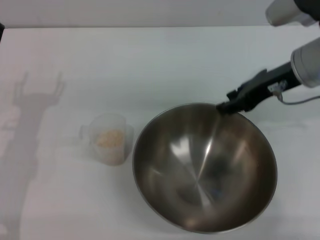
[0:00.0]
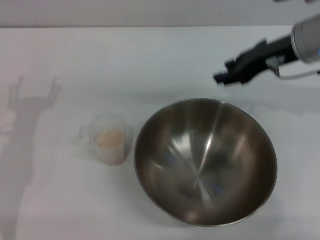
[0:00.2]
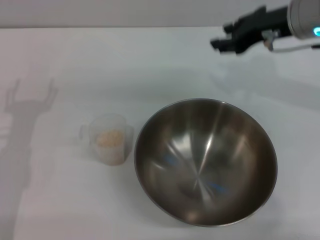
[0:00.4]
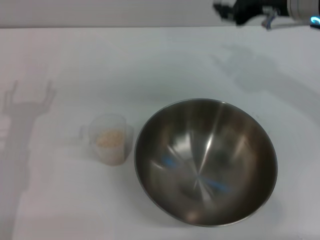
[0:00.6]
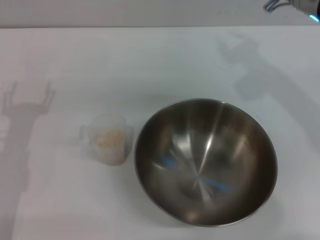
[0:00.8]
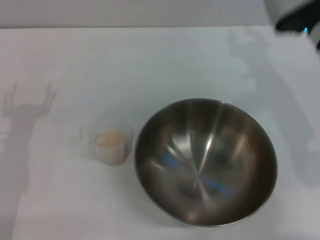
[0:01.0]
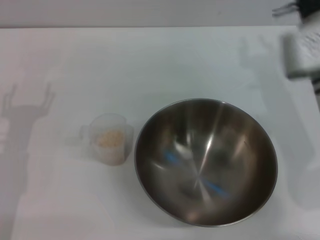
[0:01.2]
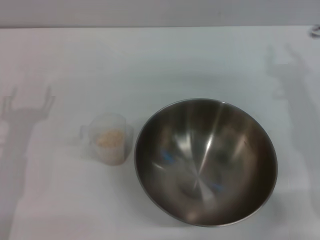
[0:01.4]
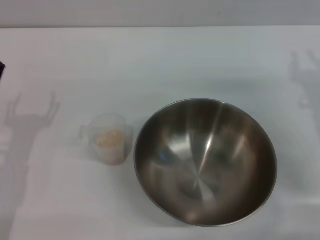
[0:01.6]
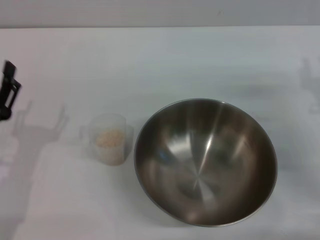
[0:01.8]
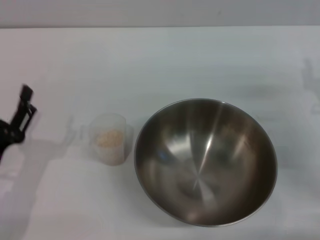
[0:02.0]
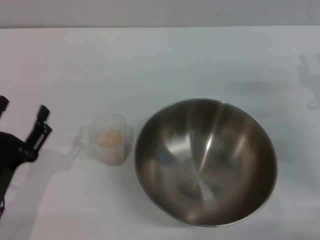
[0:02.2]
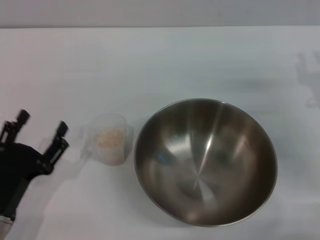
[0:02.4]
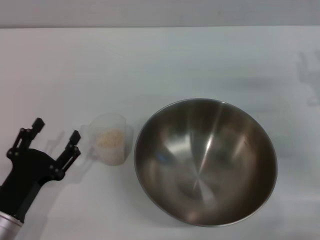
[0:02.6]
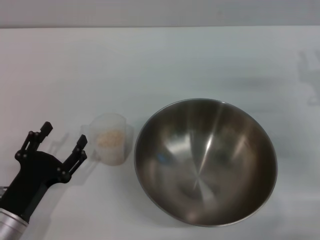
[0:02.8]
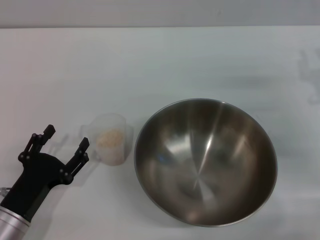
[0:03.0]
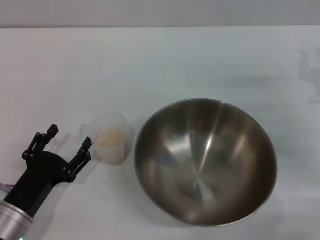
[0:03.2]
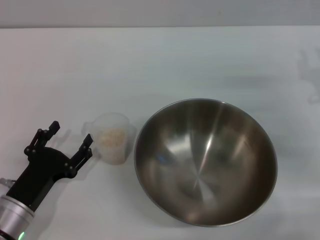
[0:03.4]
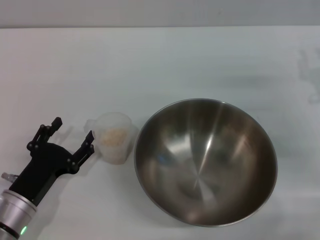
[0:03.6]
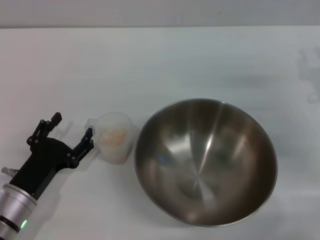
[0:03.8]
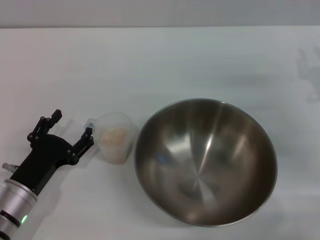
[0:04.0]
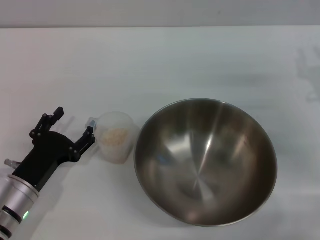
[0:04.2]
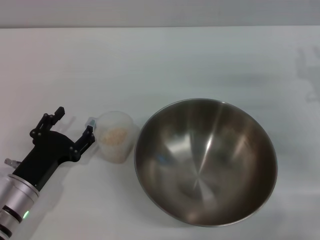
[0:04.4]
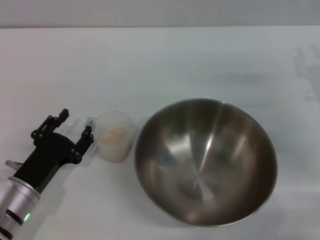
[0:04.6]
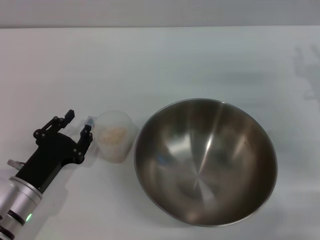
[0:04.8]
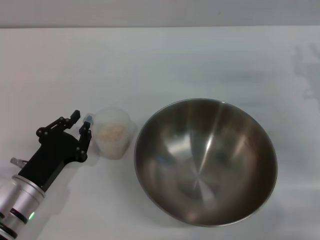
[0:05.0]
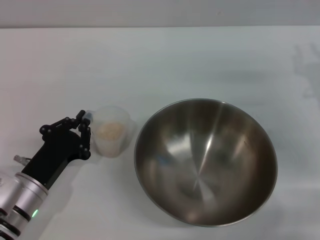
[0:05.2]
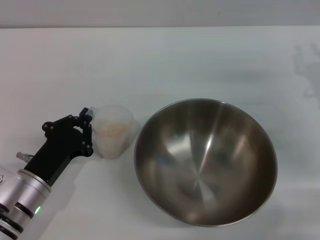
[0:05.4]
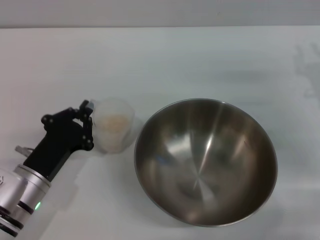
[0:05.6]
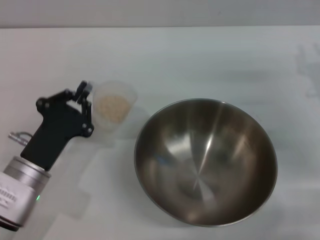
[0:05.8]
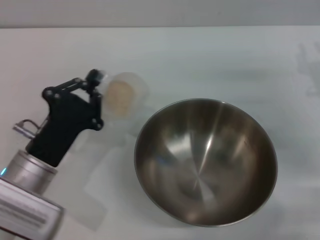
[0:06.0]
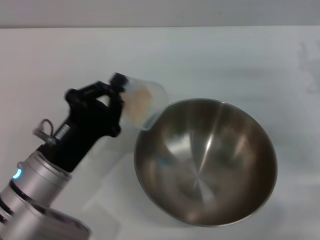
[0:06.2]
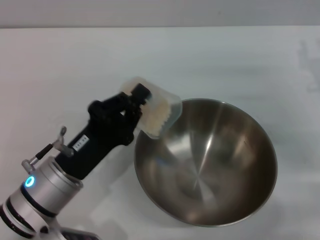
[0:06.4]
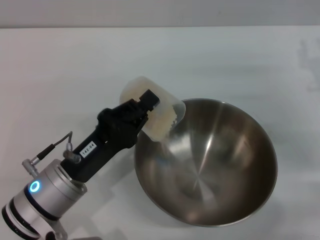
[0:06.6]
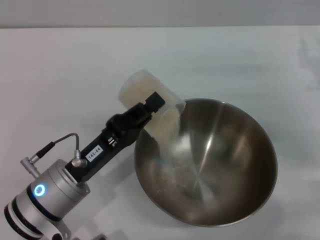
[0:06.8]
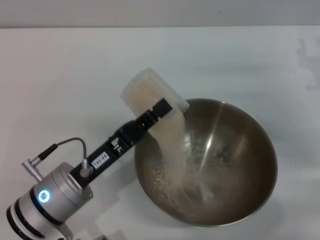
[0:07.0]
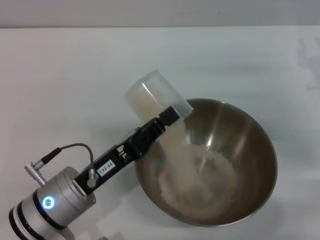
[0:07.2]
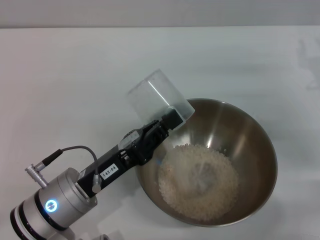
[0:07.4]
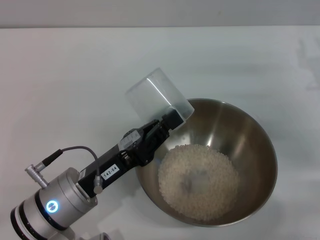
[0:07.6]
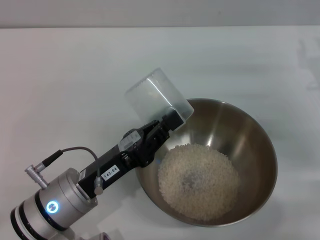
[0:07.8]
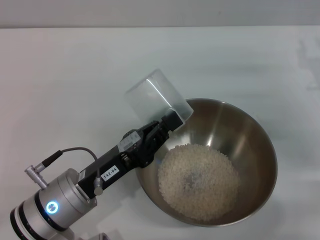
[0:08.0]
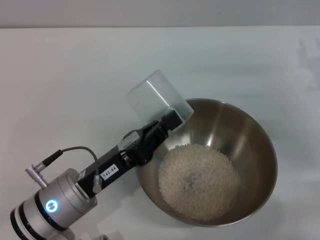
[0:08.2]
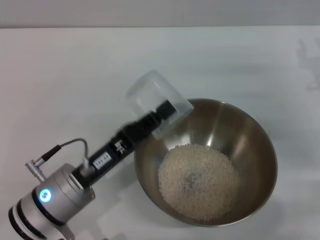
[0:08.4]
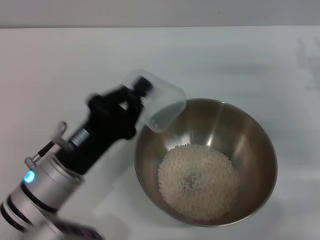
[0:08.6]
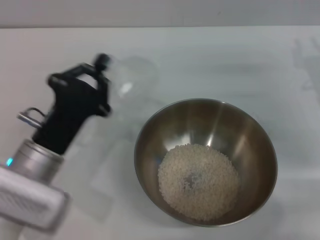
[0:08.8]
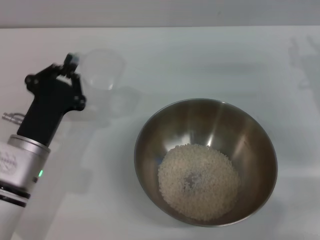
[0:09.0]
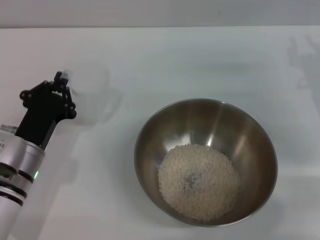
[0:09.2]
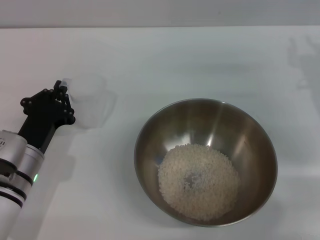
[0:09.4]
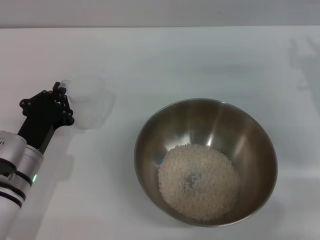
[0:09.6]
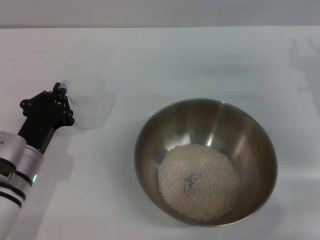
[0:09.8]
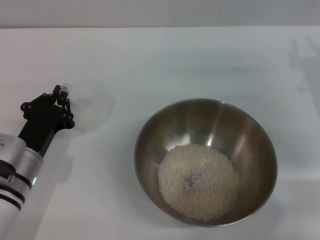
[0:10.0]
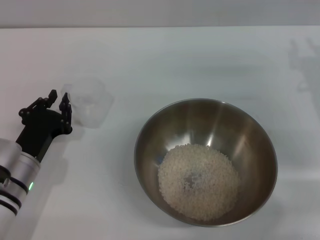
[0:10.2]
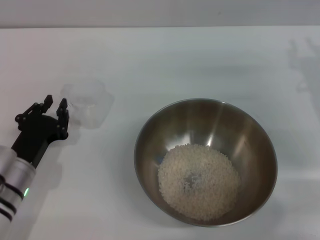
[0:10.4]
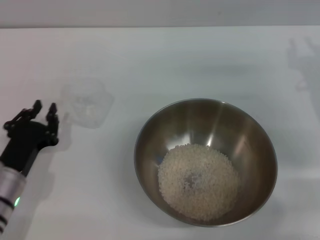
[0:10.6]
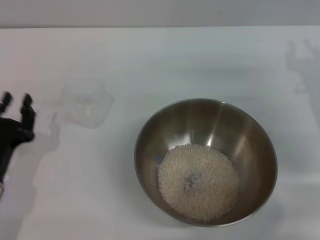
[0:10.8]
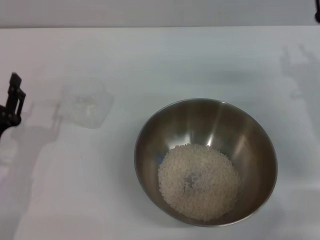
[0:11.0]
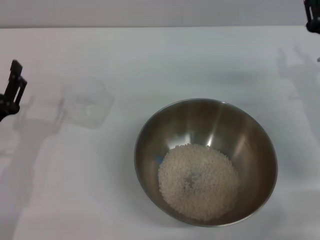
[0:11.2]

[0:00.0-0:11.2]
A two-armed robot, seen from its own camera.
Task of the whole recording: Place the bowl in the middle of the table with one hand and pour the rice from the grain cup into it with the other hand.
Step, 0:00.4 to 0:05.8: Pick up the cup with rice in it with the left gripper.
Step, 0:06.0 to 0:08.8: Pour the rice from the cup into the bowl with the left gripper.
Step, 0:09.0 to 0:10.8: Place the cup on the table with the left gripper.
0:00.0 to 0:01.6: The right gripper shifts some 15 cm downward, to the right and backward.
0:01.6 to 0:03.2: The left gripper heads downward and backward, covering about 10 cm.
0:03.2 to 0:04.8: The grippers stay close to where they were, moving slightly.
0:04.8 to 0:06.4: The left gripper moves to the right and upward, about 10 cm, and closes up.
0:08.0 to 0:09.6: The left gripper goes approximately 10 cm to the left and forward.
0:09.6 to 0:11.2: The left gripper shifts by about 5 cm, and opens its fingers.
